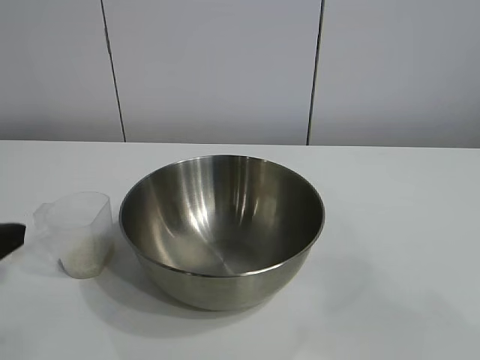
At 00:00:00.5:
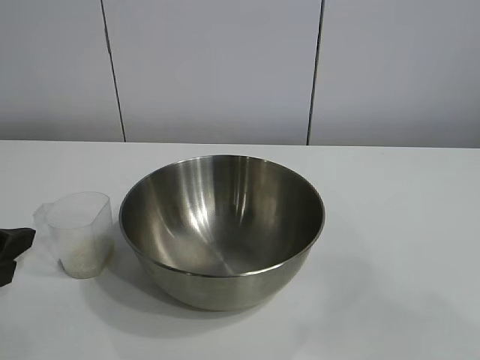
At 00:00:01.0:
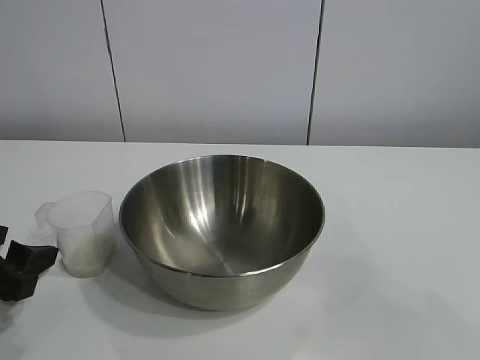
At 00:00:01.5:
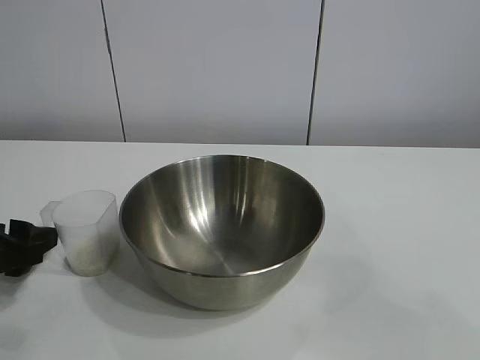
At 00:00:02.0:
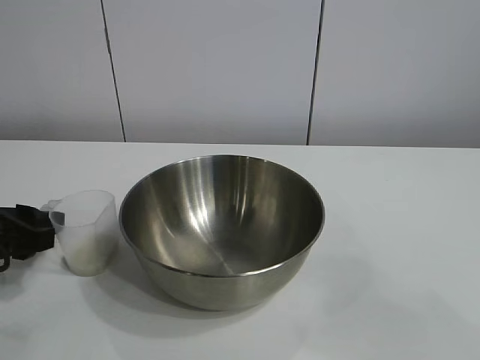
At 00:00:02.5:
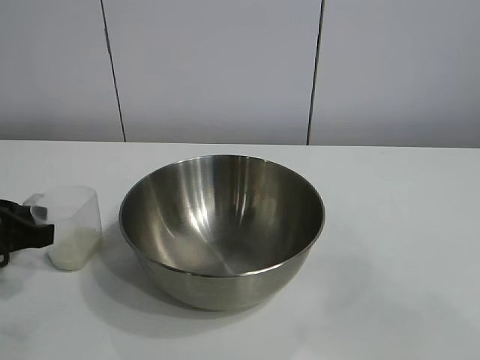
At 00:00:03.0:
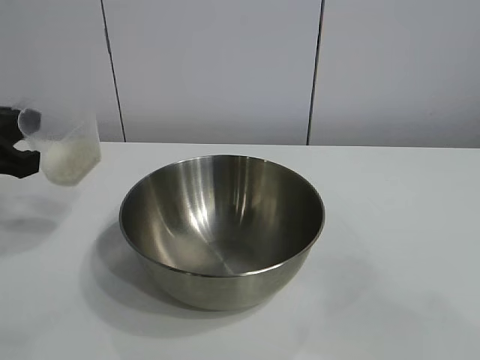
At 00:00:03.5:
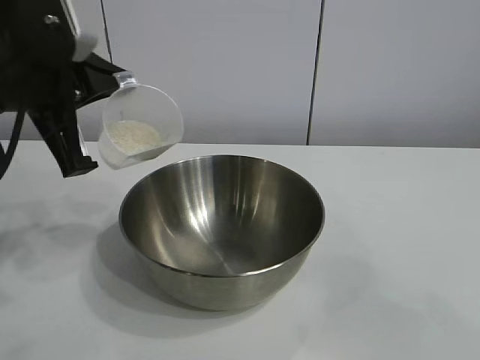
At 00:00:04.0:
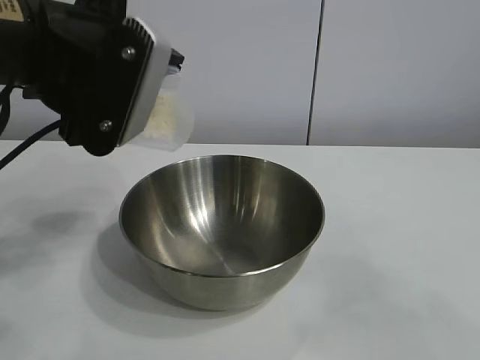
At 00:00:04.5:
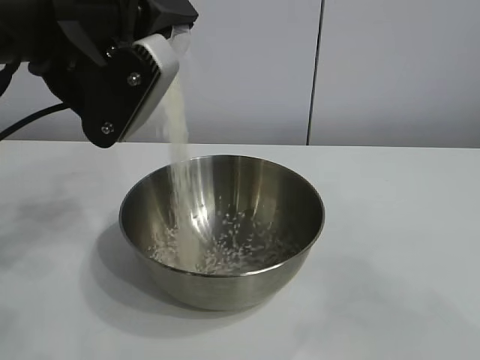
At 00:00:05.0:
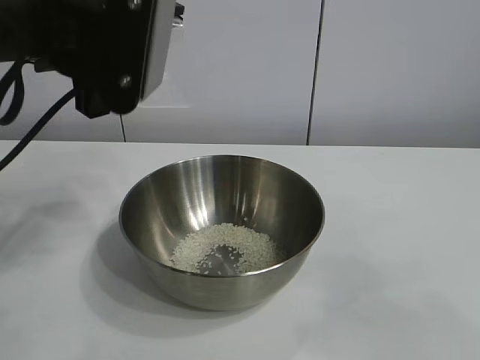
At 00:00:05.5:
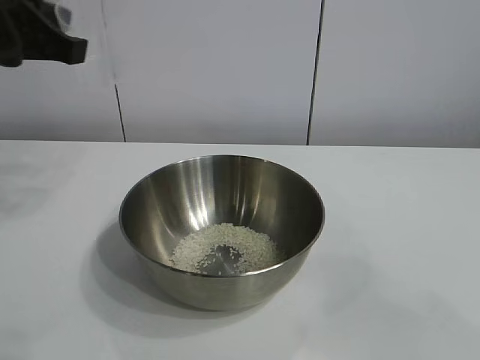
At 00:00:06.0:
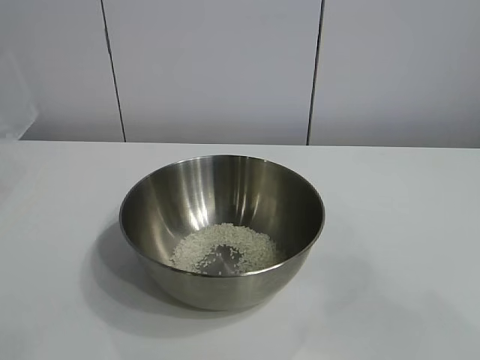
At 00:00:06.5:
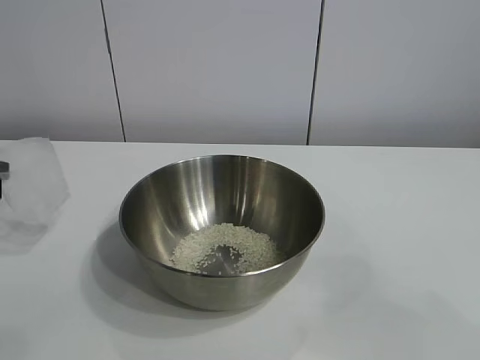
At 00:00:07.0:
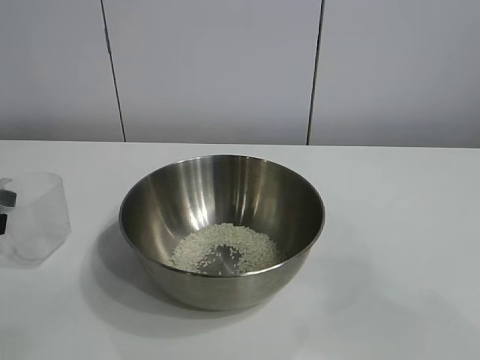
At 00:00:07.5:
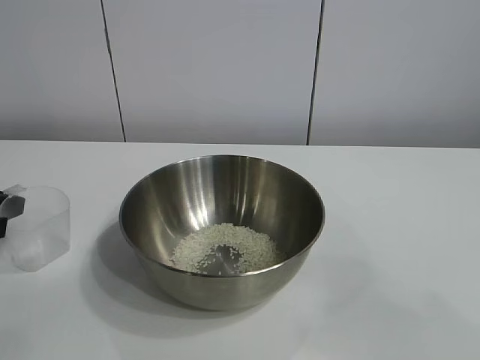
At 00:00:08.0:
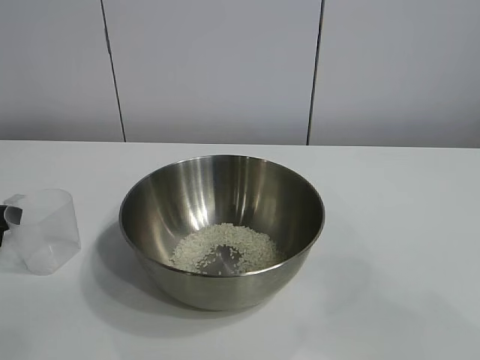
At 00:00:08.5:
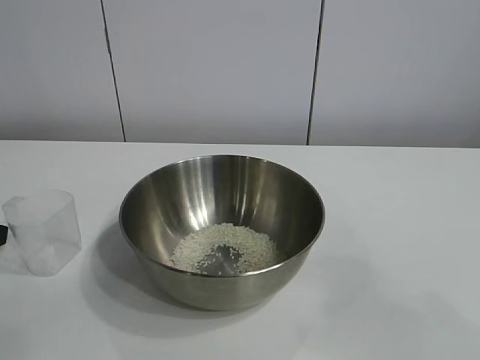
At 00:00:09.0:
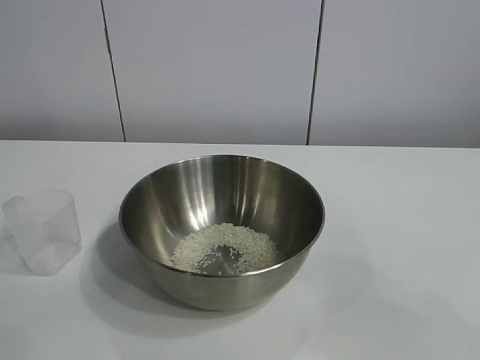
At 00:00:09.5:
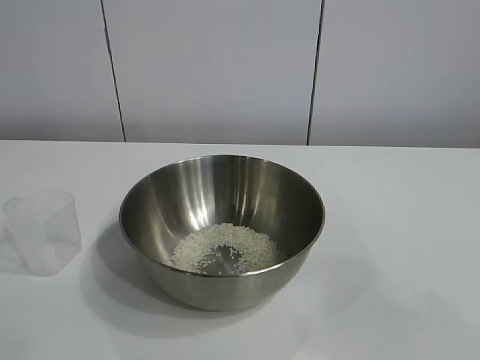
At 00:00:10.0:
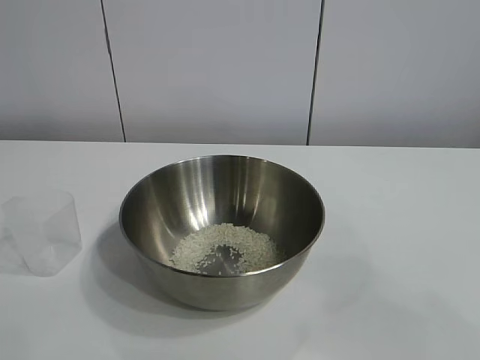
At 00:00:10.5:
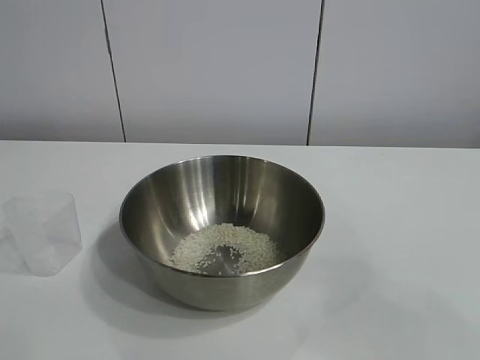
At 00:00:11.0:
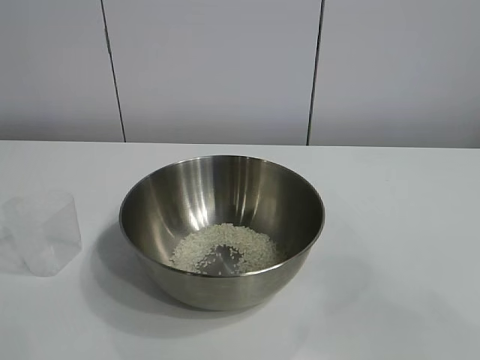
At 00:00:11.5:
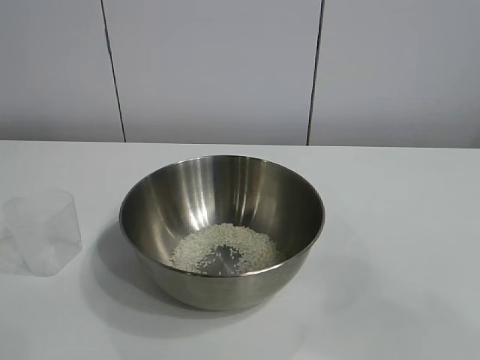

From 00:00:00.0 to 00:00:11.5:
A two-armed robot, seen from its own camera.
Task of the whole recording: the right gripper grasp the rice container and place it in the center of the table, the left gripper grasp the rice scoop and pour the rice into the rice container.
Step, from 00:00:00.0 to 00:00:02.0: Grasp the cup with rice in it with left gripper.
Step, from 00:00:03.0 to 00:00:04.5: Pour the rice from the cup into the bowl with the left gripper.
Step, from 00:00:05.0 to 00:00:07.5: Place the cup on the table with the left gripper.
